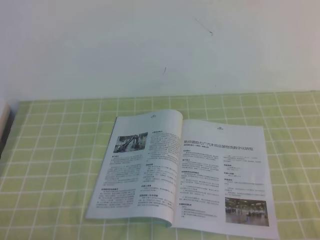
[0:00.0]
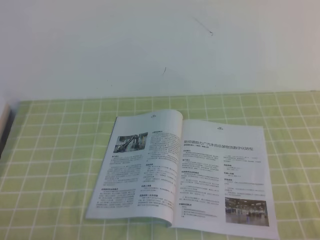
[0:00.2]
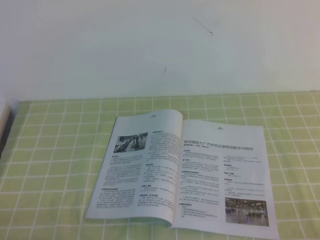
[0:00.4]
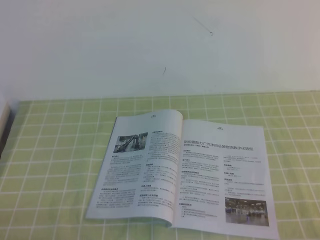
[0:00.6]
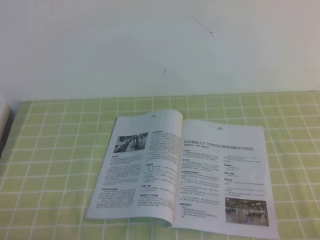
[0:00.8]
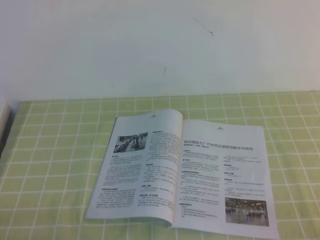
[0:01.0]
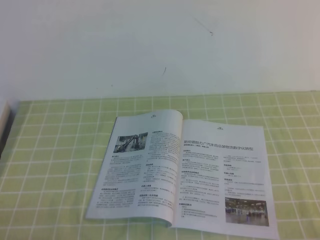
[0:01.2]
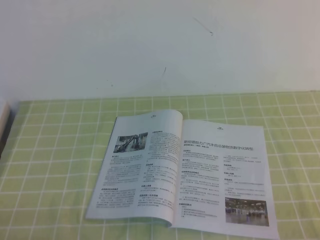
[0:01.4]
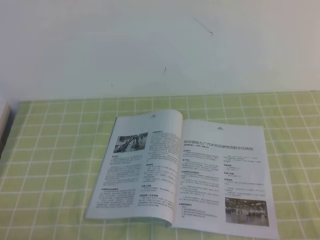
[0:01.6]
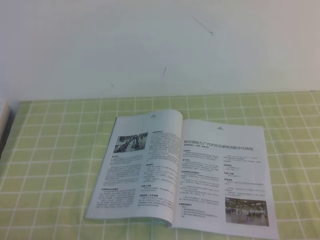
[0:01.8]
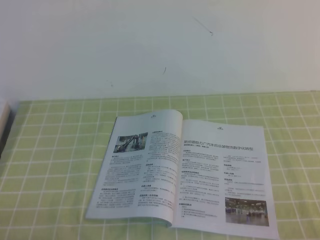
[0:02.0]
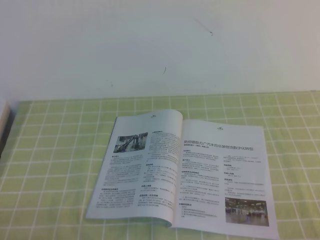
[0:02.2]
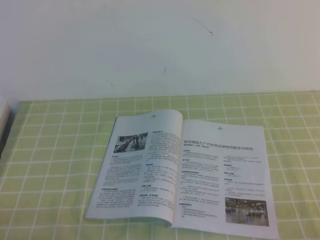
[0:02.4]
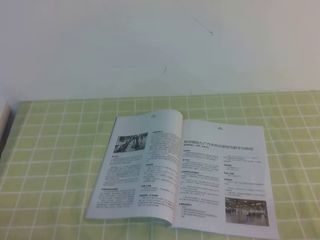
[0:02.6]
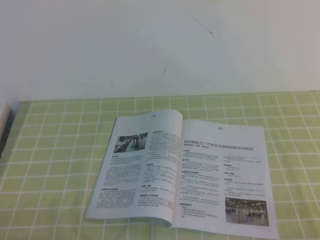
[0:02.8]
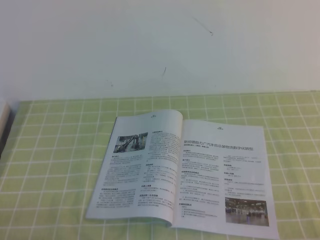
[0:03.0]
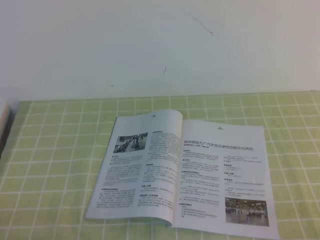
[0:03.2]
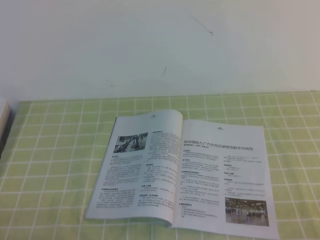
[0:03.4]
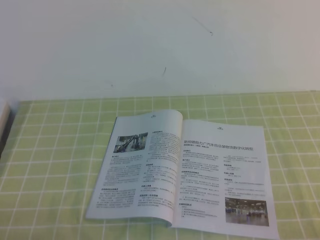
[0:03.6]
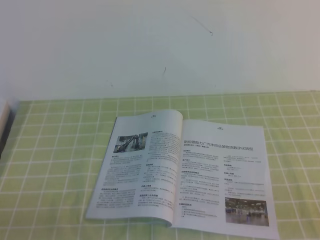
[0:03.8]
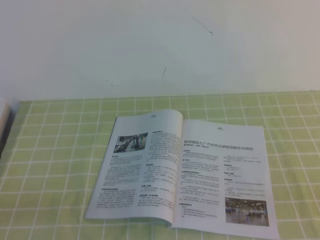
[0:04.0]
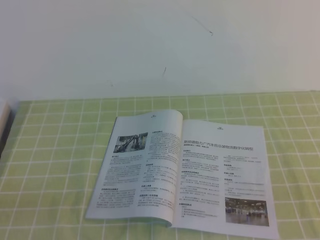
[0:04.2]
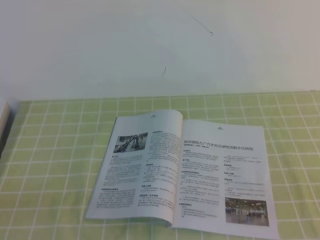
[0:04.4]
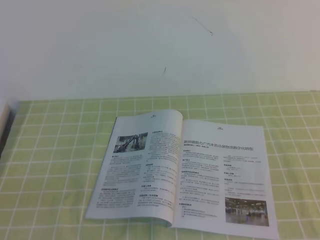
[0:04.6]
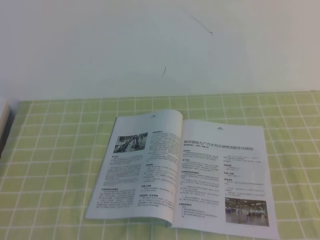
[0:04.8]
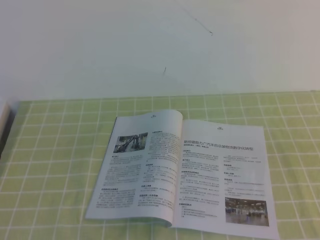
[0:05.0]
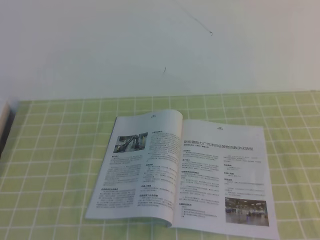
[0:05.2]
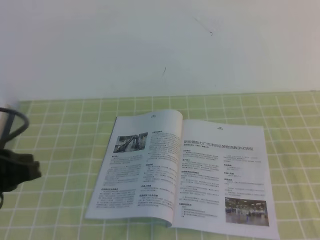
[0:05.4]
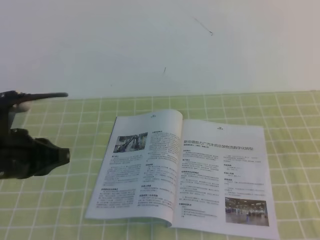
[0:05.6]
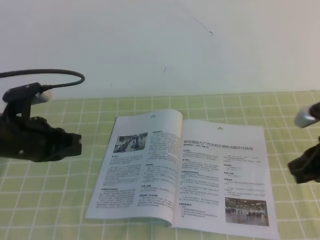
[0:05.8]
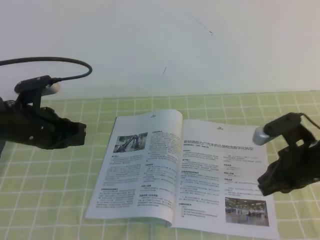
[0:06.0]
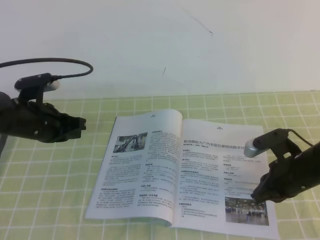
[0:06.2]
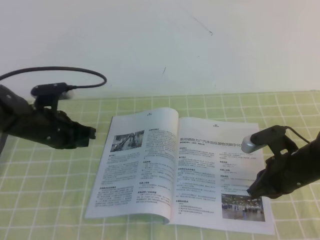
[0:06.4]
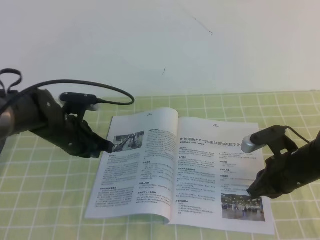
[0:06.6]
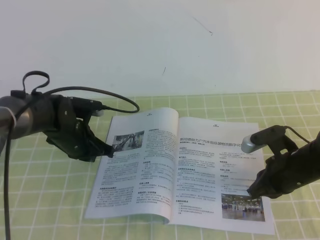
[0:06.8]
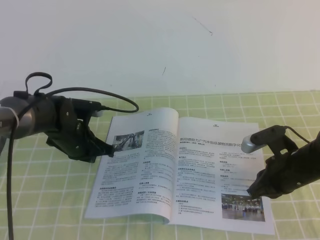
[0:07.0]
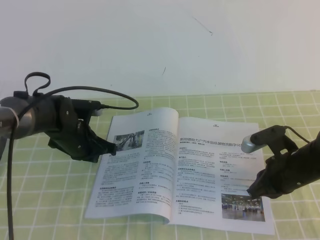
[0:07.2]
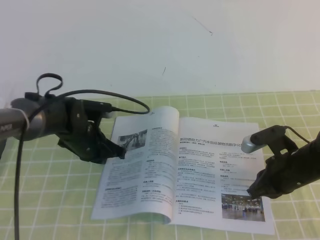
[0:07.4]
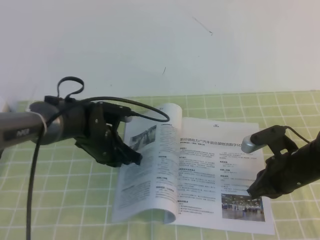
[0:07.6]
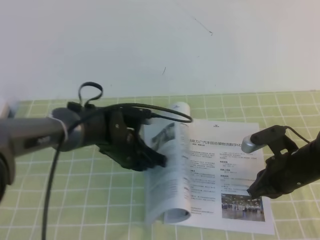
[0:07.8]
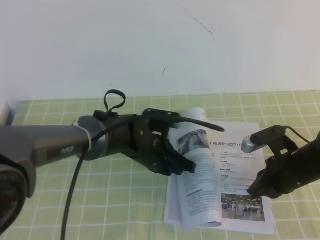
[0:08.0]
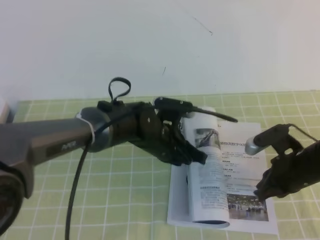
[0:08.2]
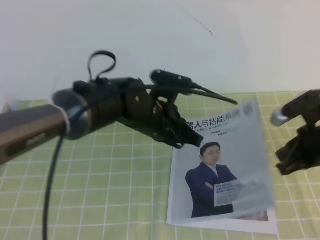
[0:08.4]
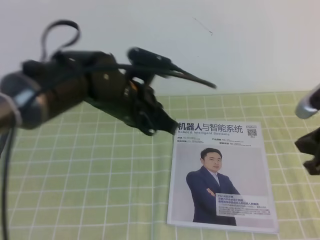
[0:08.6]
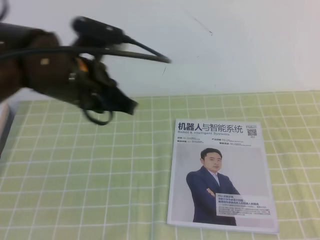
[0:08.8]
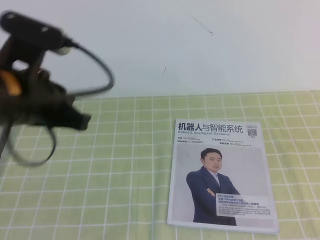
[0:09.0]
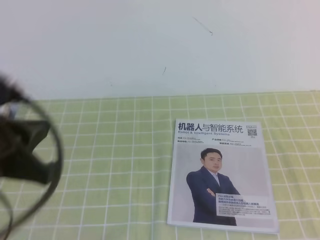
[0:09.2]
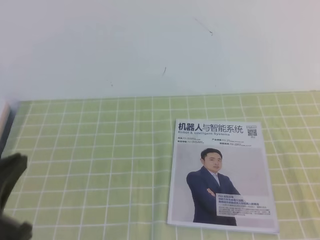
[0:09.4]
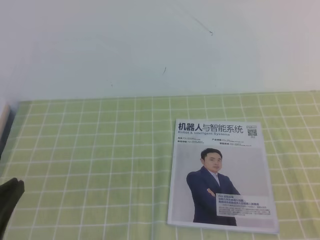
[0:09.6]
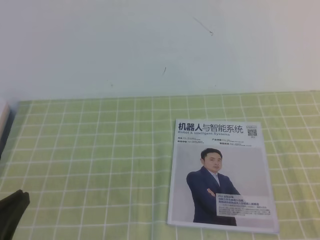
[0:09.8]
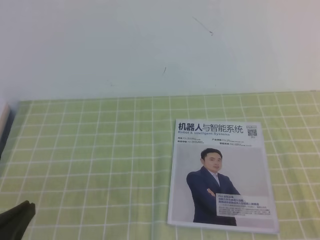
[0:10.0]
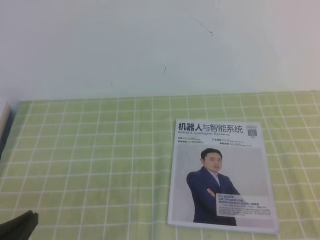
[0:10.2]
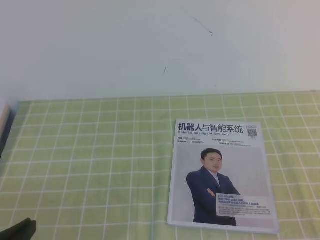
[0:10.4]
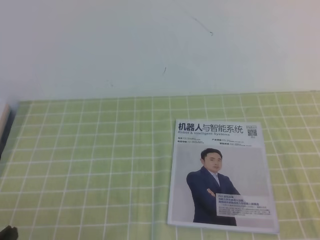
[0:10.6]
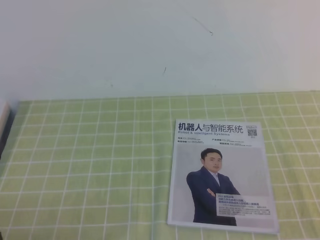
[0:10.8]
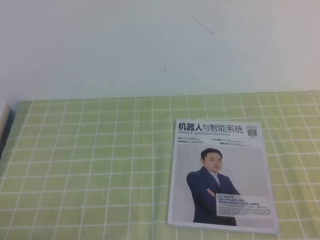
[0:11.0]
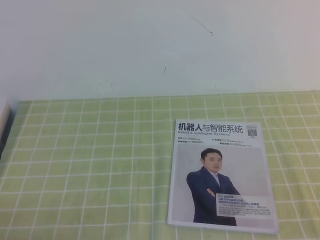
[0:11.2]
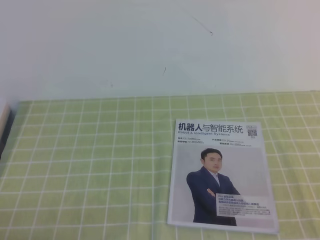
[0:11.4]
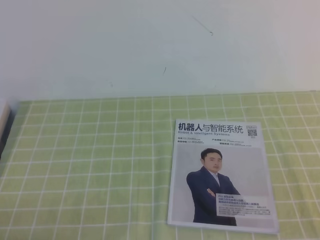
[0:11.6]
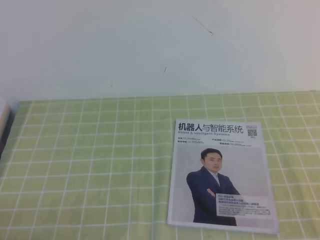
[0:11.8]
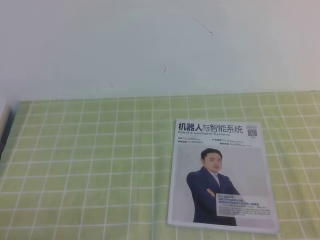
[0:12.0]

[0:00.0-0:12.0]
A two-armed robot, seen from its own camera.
Task of the whole recording: on the green tablecloth, hold the book with one hand and close it with the other.
0:00.0 to 0:03.0: The two grippers keep their place.
0:04.4 to 0:06.0: The two grippers go roughly 25 cm forward.
0:06.0 to 0:07.6: The right gripper shifts roughly 5 cm downward. The left gripper is displaced to the right, downward and forward by roughly 15 cm.
0:07.6 to 0:09.0: Both grippers travel together upward and backward, roughly 25 cm.
0:09.0 to 0:10.4: The right gripper shifts roughly 15 cm backward and downward. Meanwhile the left gripper shifts roughly 25 cm backward, downward and to the left.
0:10.4 to 0:12.0: The left gripper moves some 5 cm.

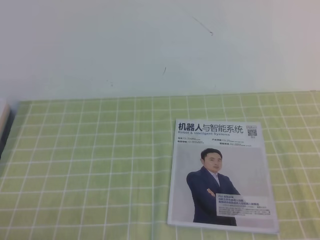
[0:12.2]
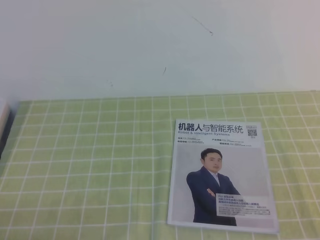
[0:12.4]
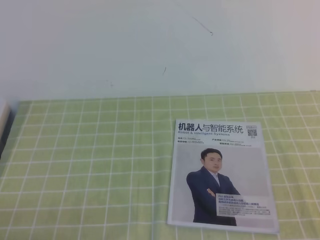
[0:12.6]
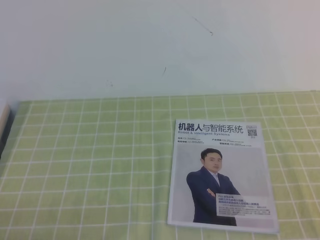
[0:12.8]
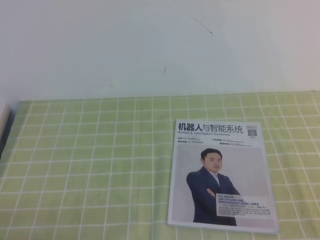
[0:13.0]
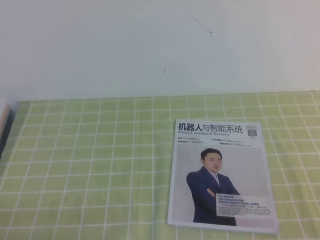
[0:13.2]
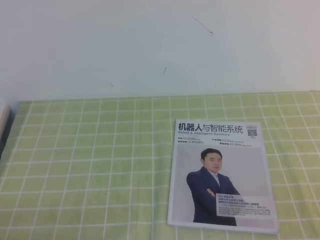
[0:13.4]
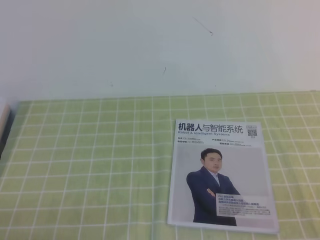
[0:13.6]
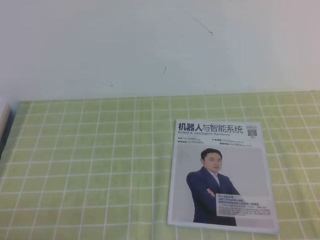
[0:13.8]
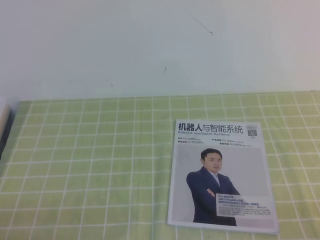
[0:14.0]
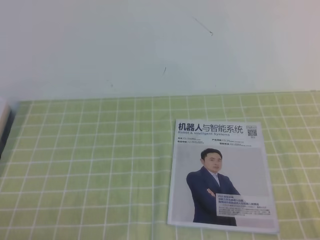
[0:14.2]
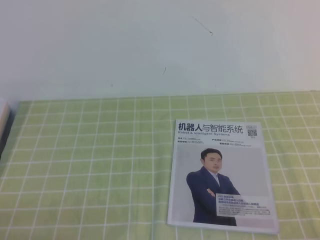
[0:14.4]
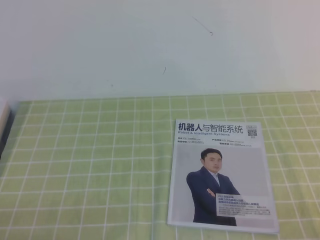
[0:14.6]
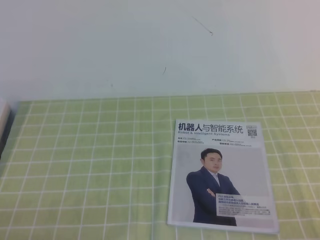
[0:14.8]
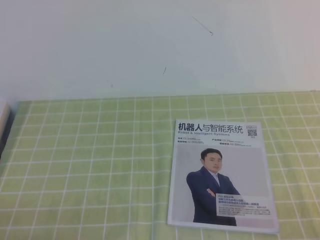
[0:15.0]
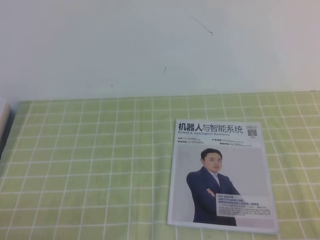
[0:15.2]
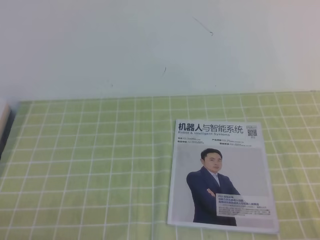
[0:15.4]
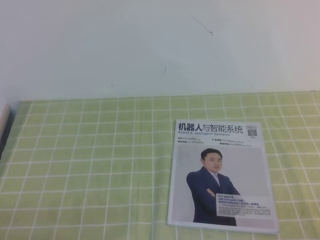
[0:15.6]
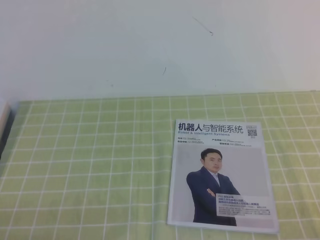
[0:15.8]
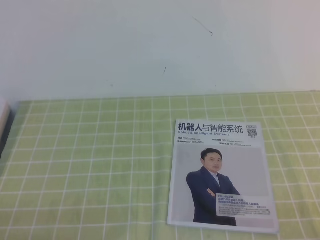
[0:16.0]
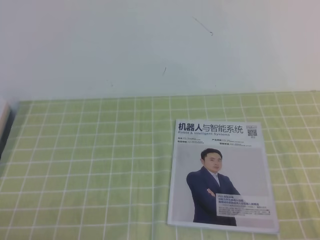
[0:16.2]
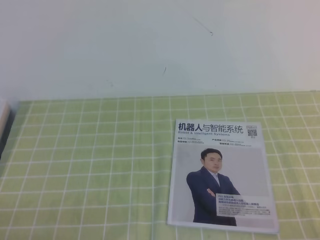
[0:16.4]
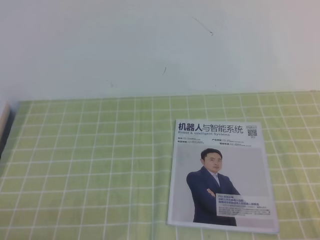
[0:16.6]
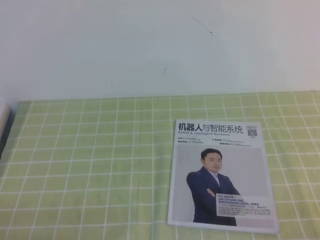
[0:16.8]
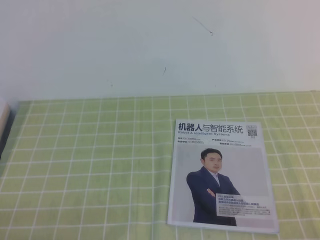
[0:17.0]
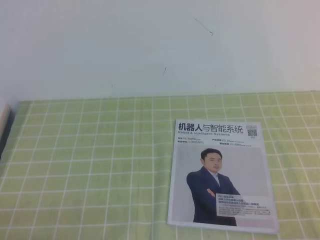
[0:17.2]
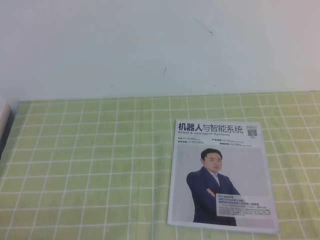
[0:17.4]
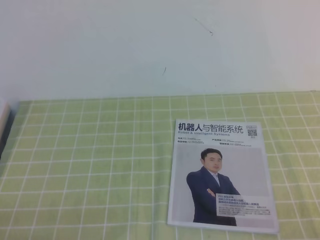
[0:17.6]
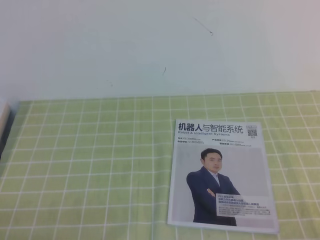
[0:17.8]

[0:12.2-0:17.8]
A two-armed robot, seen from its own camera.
Task of the whole recording: on the green tablecloth, hold the book with one hand and close it with the other.
0:15.0 to 0:17.8: Both grippers stay about where they are.
